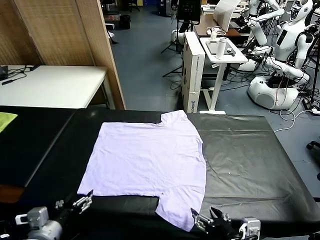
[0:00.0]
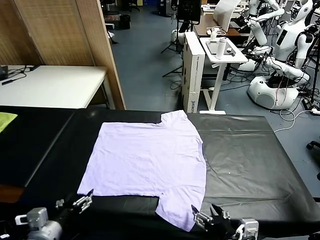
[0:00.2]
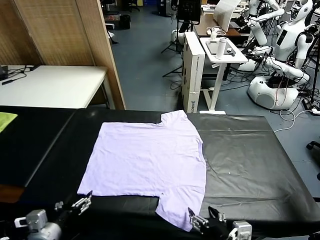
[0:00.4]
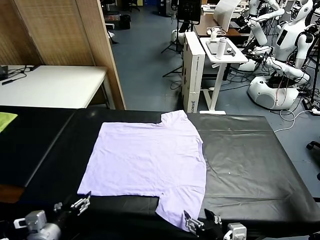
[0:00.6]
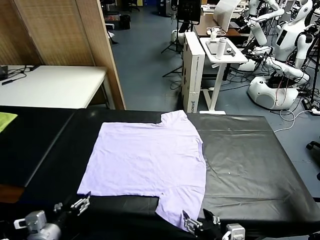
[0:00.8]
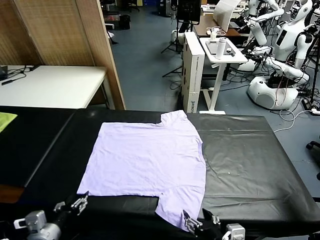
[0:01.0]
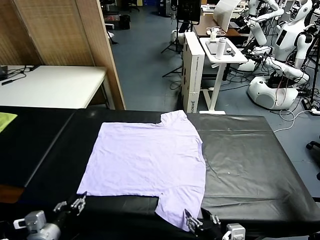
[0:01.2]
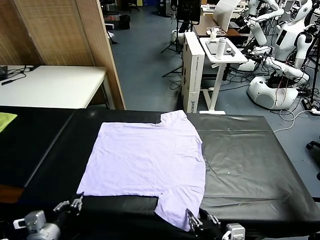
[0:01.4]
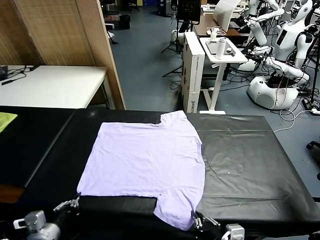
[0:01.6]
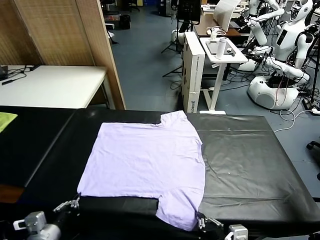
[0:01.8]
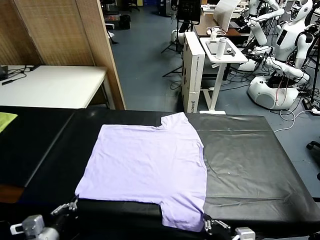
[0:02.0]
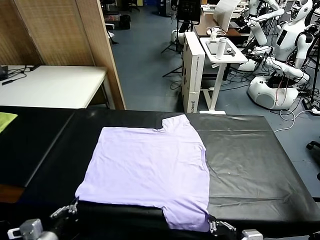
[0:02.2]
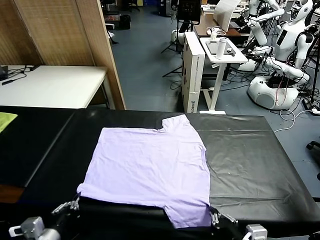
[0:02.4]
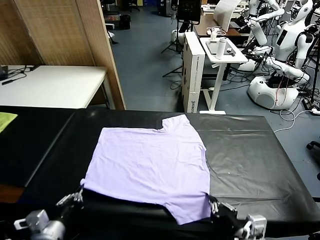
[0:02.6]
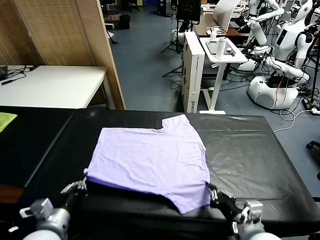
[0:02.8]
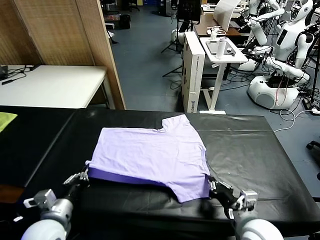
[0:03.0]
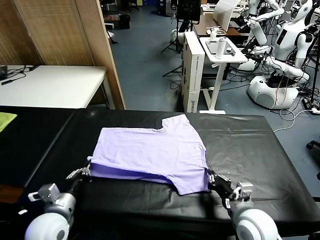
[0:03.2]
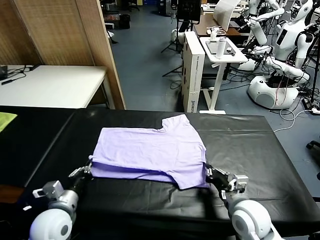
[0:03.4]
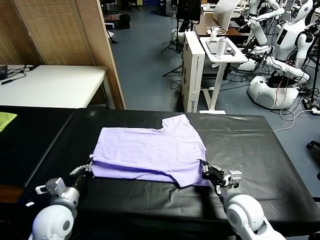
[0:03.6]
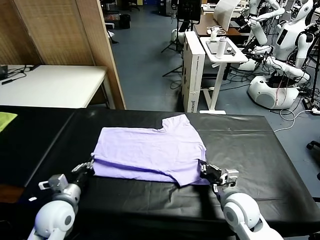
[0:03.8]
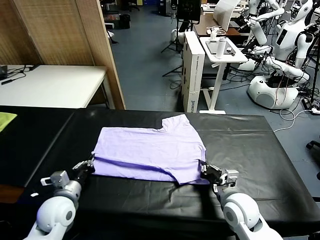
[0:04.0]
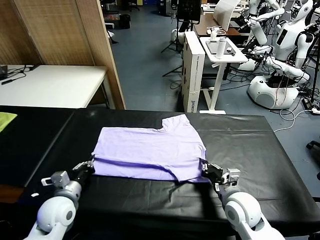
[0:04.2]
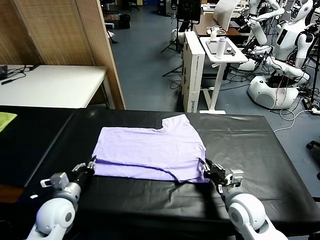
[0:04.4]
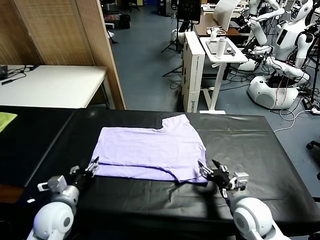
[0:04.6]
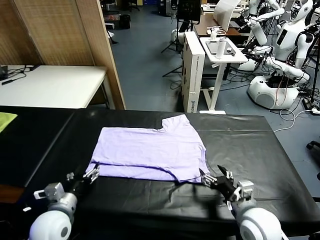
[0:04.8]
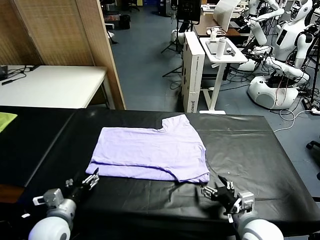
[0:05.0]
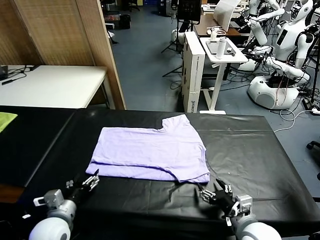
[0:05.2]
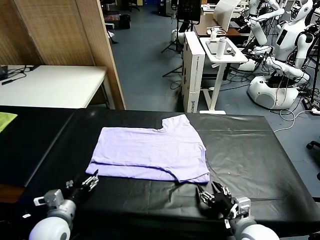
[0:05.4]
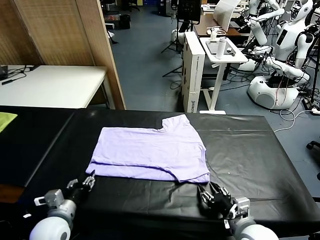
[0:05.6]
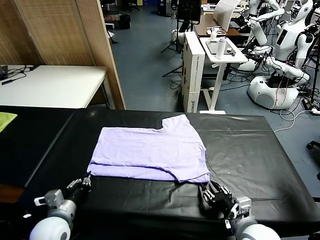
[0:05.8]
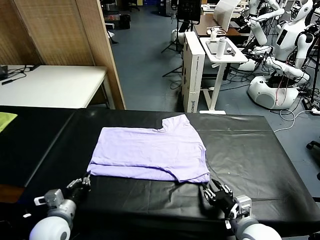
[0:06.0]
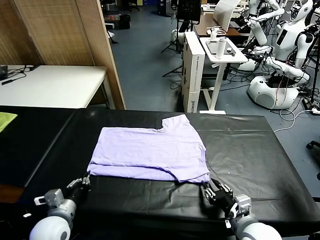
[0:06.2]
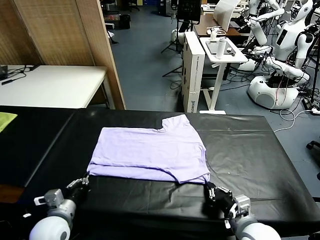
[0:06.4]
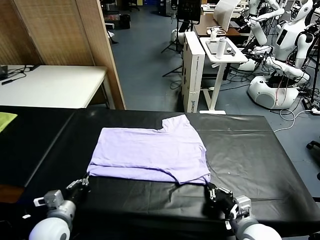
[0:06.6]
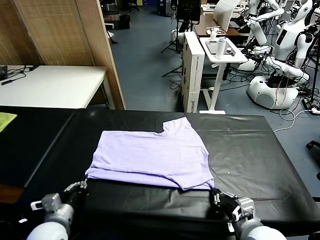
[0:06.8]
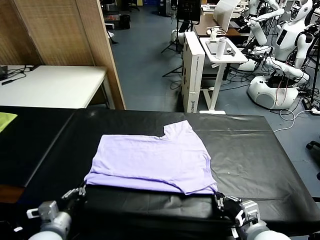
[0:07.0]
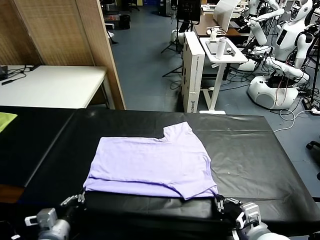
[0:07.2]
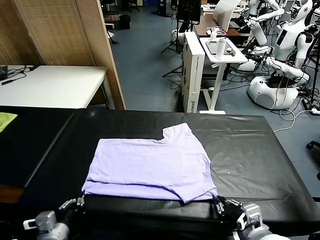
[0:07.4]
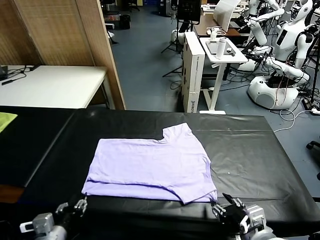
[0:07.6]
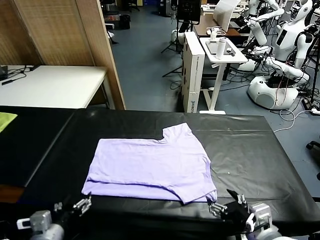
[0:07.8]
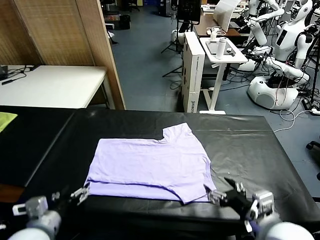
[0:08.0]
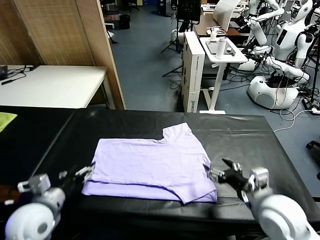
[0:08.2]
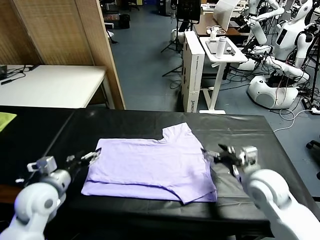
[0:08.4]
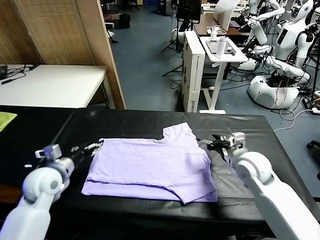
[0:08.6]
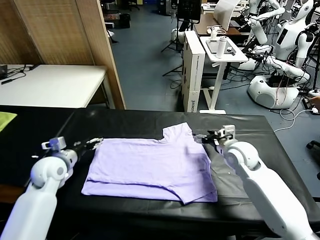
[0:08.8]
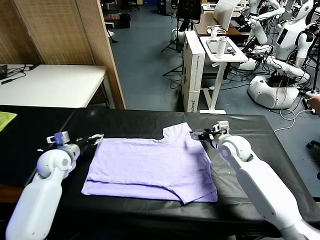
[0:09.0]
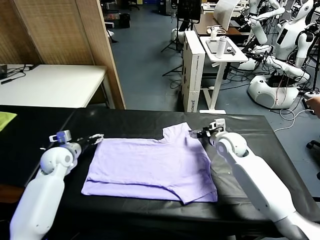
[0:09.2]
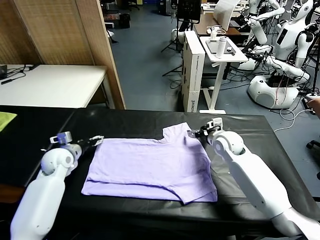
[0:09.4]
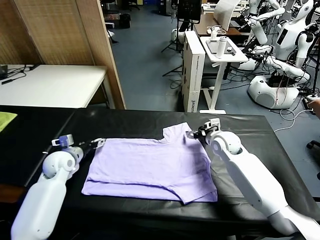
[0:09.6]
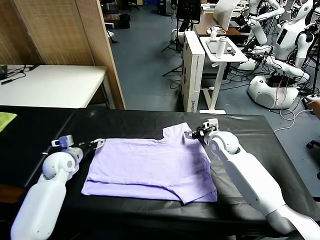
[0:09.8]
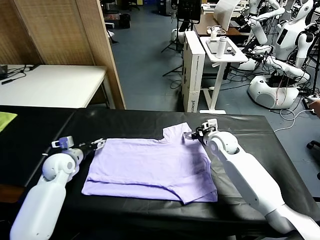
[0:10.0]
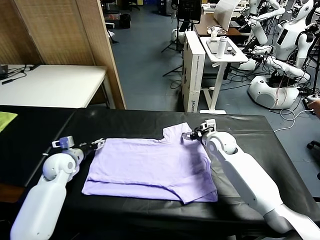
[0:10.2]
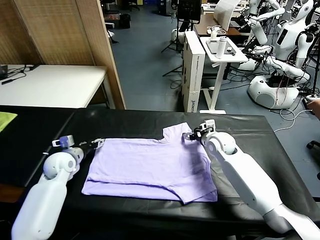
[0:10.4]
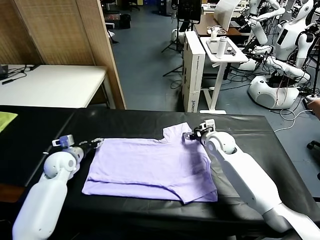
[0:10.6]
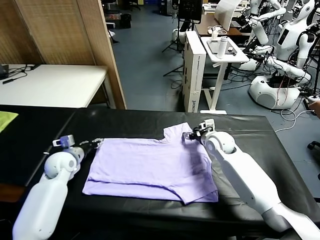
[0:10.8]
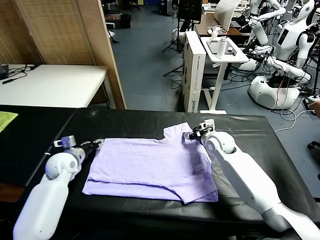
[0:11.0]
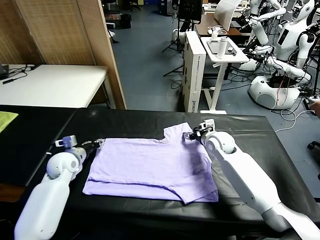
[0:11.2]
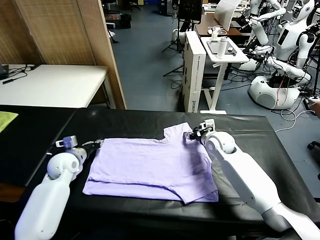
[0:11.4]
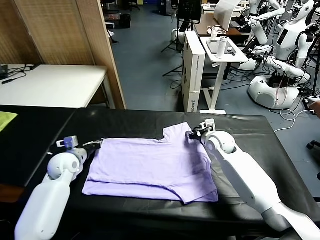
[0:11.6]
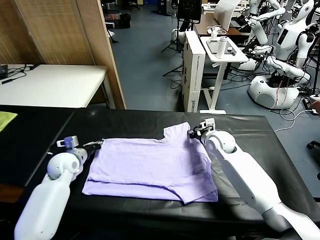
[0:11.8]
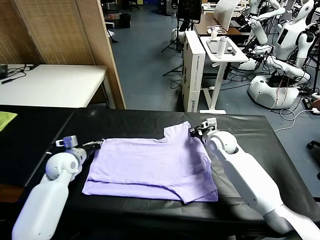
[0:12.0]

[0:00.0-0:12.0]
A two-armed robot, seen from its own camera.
Task of the whole recording: fold and organize the clothes.
Step, 0:00.0 to 0:01.8: use both grippers simultaneously to clamp the lower edge of the clothing fabric.
Step, 0:02.2 to 0:04.6: use both grippers to drag the lower edge of the fabric forward and fold it over the upper edge.
Step, 0:04.8 to 0:07.6: Drag the clothes downward with both gripper.
Step, 0:07.8 to 0:11.8: use both grippers simultaneously to clamp the upper edge of the clothing fabric.
0:01.6 to 0:03.0: The left gripper travels forward by approximately 5 cm; the right gripper is displaced forward by about 10 cm.
0:03.0 to 0:04.4: The left gripper shifts approximately 5 cm forward, and opens, while the right gripper opens.
0:04.4 to 0:06.0: The right gripper shifts some 5 cm backward, and closes its fingers, while the left gripper closes its fingers.
0:06.0 to 0:07.6: The right gripper goes approximately 10 cm upward, and opens its fingers. Meanwhile the left gripper is displaced backward by approximately 10 cm, and opens its fingers.
0:07.6 to 0:09.0: Both grippers move forward, some 30 cm.
0:09.0 to 0:10.4: The grippers make only small movements.
0:10.4 to 0:12.0: The right gripper closes its fingers. The left gripper closes its fingers.

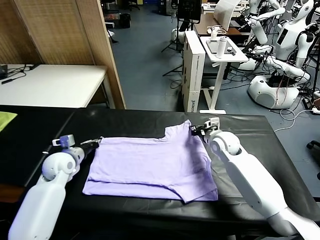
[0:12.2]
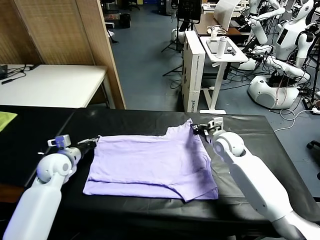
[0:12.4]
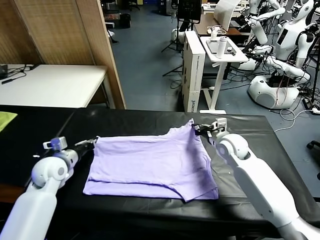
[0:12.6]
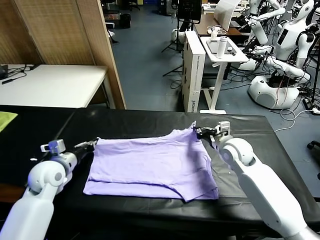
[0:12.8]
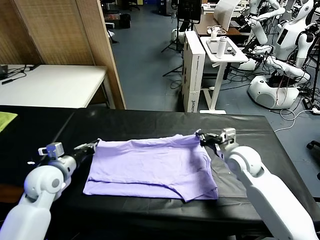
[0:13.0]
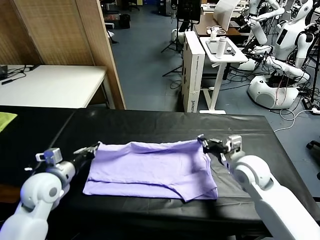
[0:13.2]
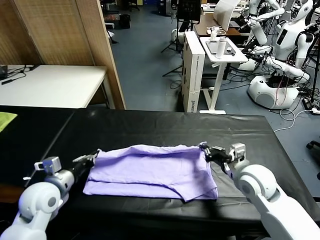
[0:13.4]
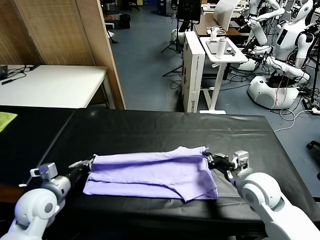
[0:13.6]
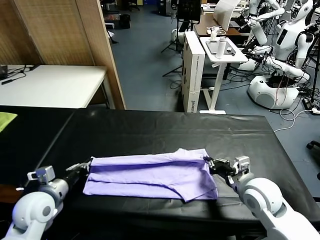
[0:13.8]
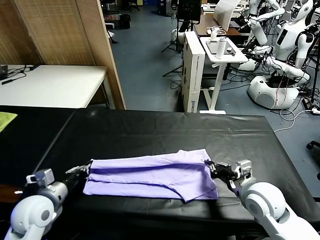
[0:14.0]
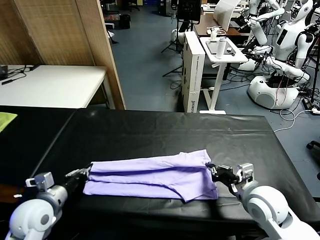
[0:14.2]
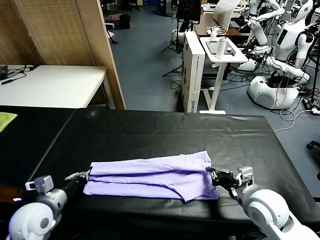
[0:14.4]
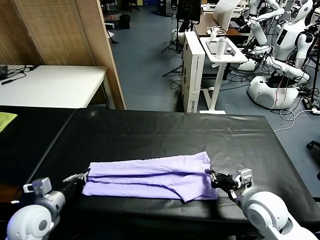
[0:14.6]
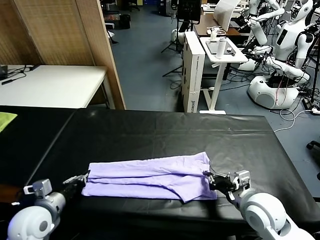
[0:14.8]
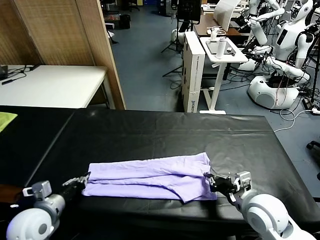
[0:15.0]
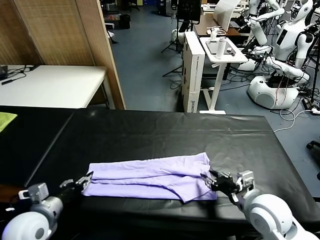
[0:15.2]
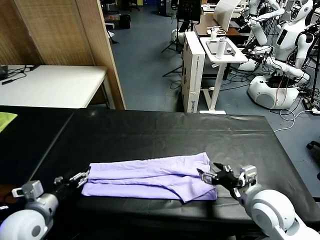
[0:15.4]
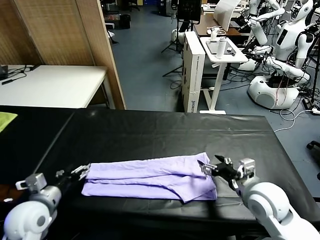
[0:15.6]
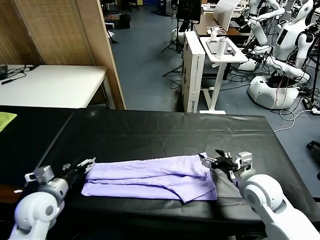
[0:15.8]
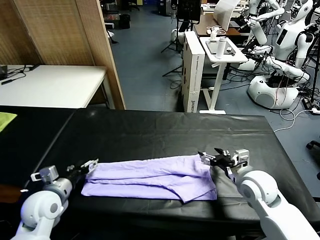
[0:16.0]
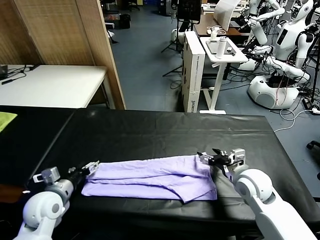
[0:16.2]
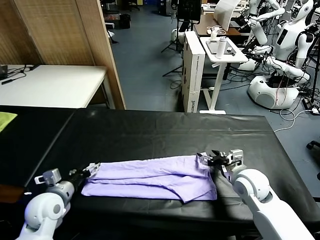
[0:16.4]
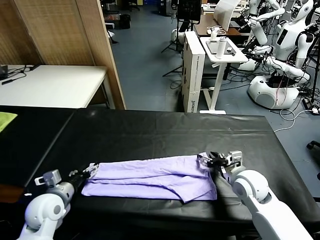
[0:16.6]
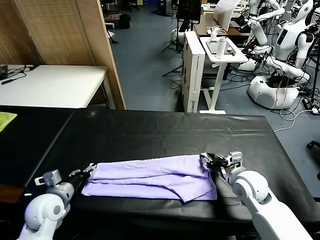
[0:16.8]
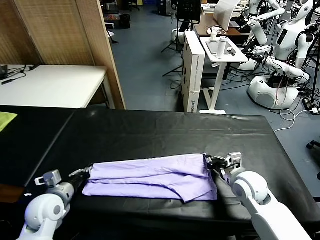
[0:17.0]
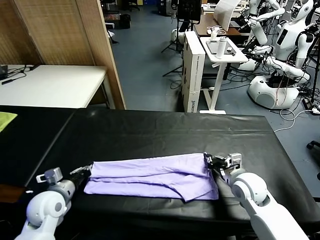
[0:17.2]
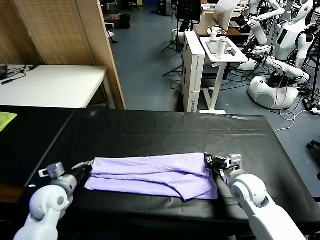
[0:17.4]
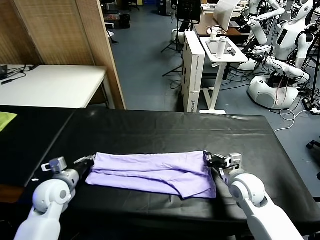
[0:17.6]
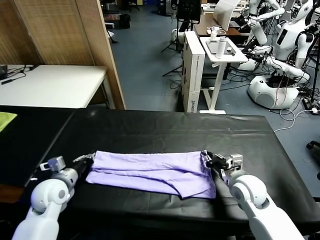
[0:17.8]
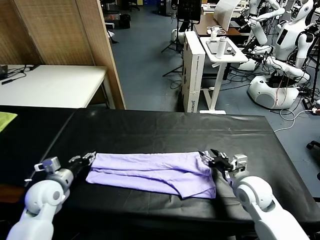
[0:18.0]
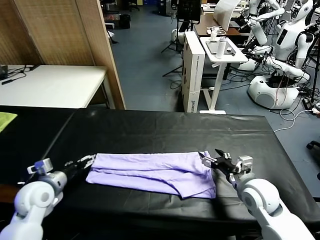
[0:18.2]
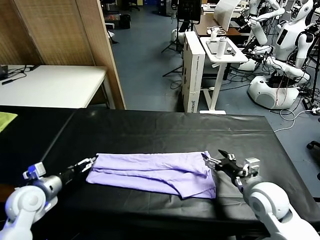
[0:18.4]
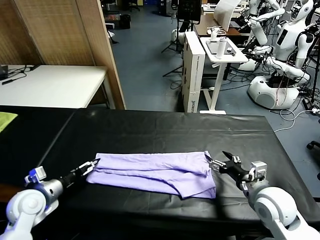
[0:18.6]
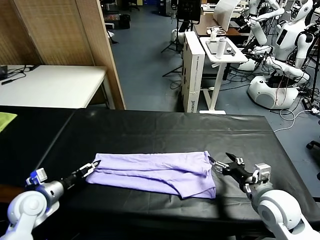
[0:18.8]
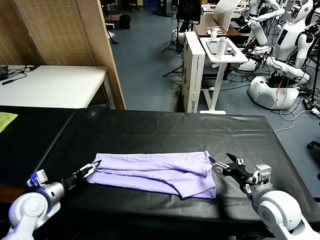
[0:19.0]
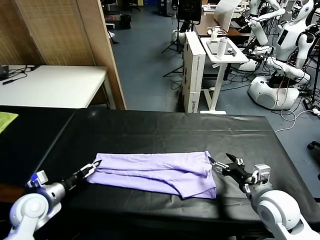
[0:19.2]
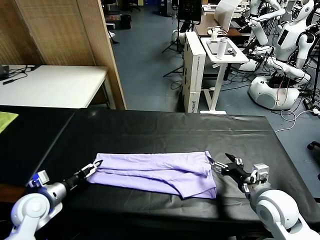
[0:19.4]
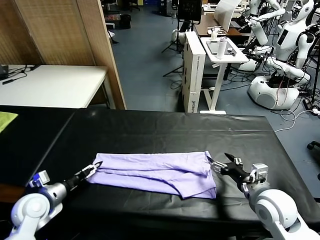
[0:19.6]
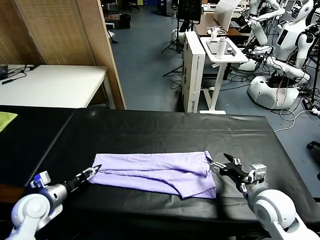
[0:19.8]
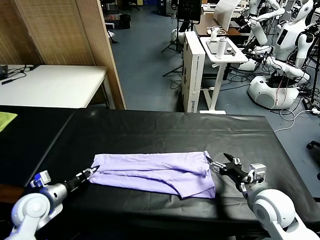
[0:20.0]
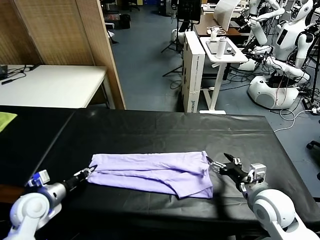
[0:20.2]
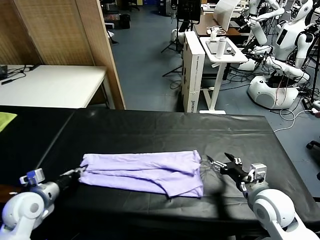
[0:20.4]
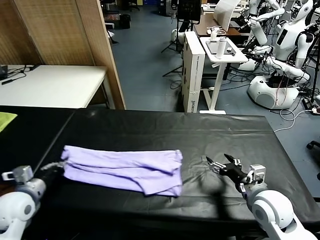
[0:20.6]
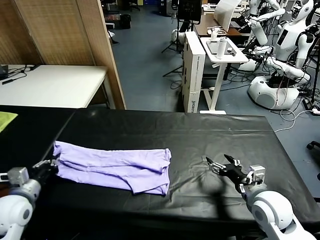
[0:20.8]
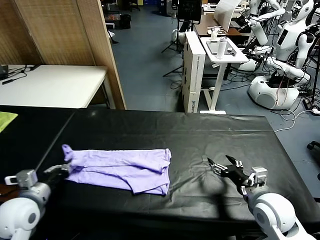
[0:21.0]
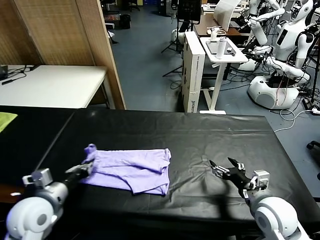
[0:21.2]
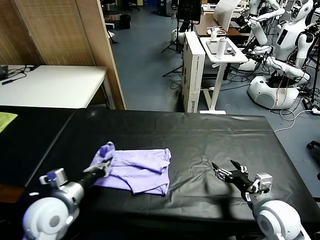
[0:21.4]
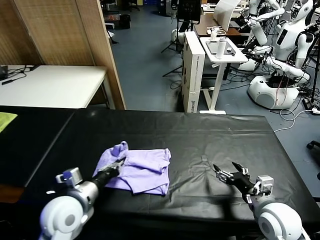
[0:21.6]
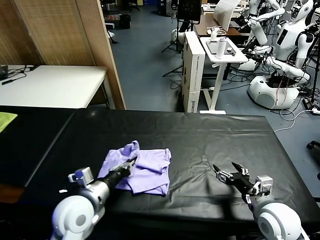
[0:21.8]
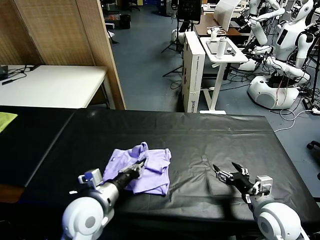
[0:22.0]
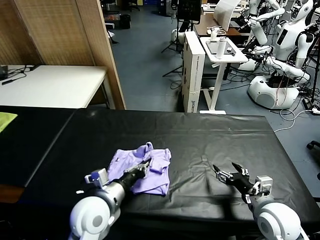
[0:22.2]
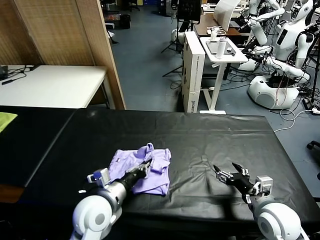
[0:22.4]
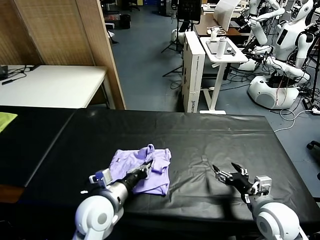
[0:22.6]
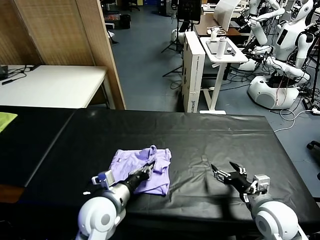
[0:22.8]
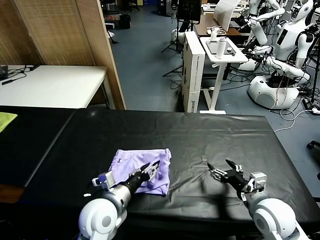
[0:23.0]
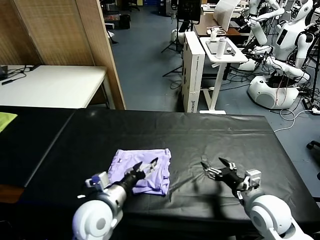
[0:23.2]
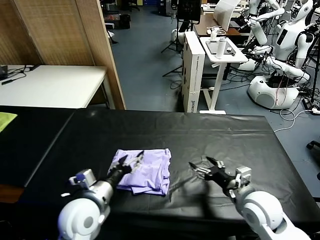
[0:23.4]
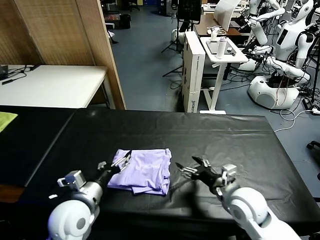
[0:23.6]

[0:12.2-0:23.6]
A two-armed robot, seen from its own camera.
Task of the whole recording: fold and organize the clothes.
Step, 0:12.2 to 0:15.2: use both grippers to drag the upper edge of the fabric backward and fold it over the lower edge.
Step, 0:15.6 to 0:20.2: use the left gripper to clamp the left edge of the fabric.
Step, 0:20.4 to 0:23.2: use the left gripper to drag the left edge of the fabric to the left and folds it over the right edge.
0:12.2 to 0:13.6: Both grippers move backward, roughly 15 cm.
0:13.6 to 0:15.0: Both grippers travel together backward, some 5 cm. The right gripper opens its fingers.
0:15.0 to 0:16.4: The left gripper is displaced forward by approximately 5 cm, and opens; the right gripper moves forward, some 10 cm, and opens up.
0:16.4 to 0:17.8: The left gripper closes its fingers, while the right gripper closes and opens again.
0:17.8 to 0:19.4: The left gripper ends up about 5 cm from where it was, and opens up. Meanwhile the right gripper moves backward, some 5 cm, and opens up.
0:19.4 to 0:20.8: The left gripper heads upward, covering roughly 5 cm, and closes.
0:20.8 to 0:22.2: The left gripper heads to the right, covering approximately 20 cm.
0:22.2 to 0:23.6: The right gripper heads to the left, covering roughly 10 cm. The left gripper opens up.
